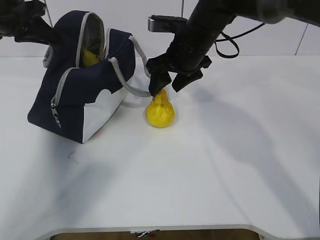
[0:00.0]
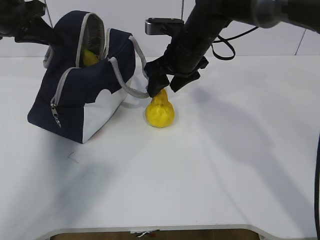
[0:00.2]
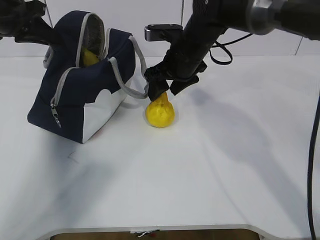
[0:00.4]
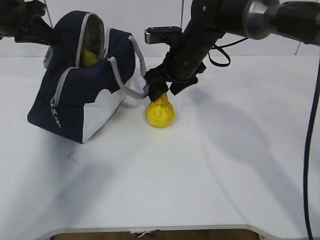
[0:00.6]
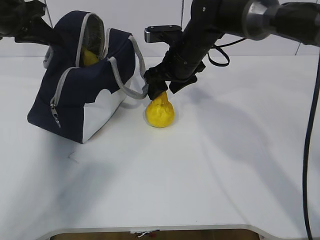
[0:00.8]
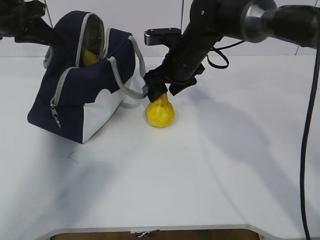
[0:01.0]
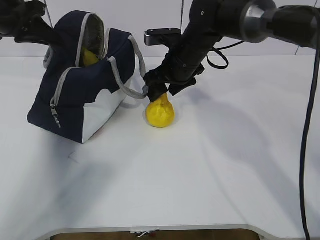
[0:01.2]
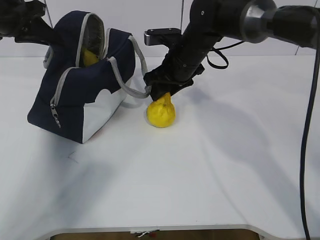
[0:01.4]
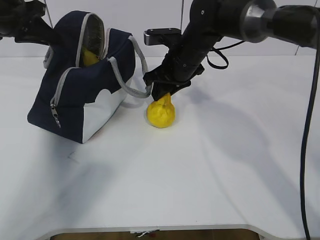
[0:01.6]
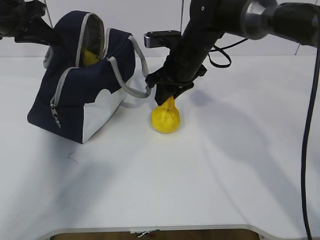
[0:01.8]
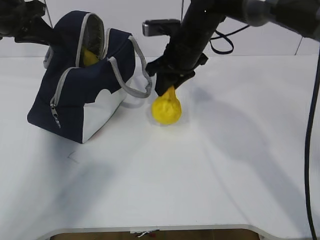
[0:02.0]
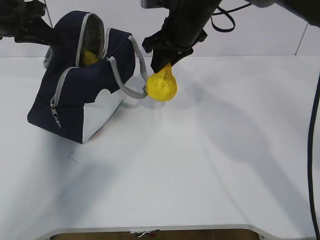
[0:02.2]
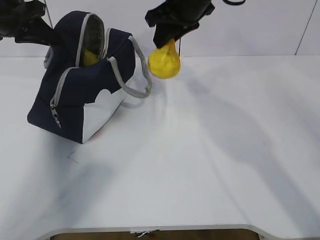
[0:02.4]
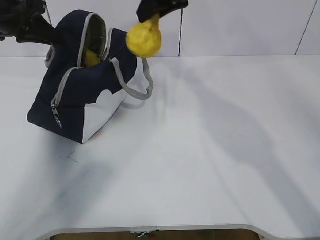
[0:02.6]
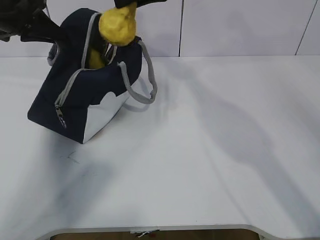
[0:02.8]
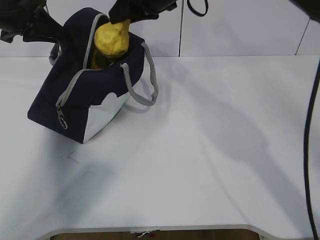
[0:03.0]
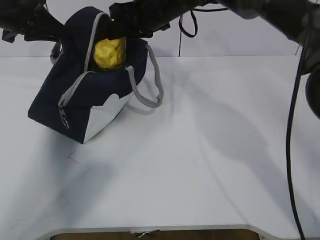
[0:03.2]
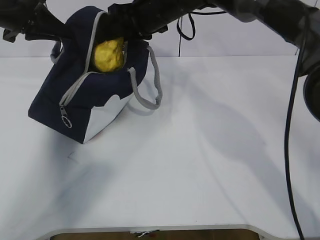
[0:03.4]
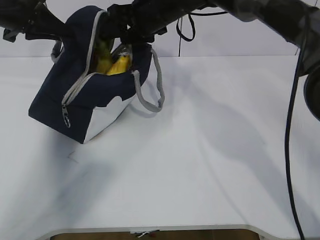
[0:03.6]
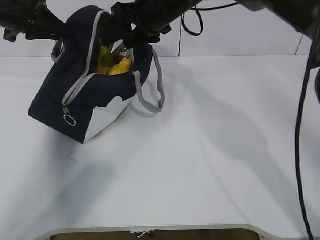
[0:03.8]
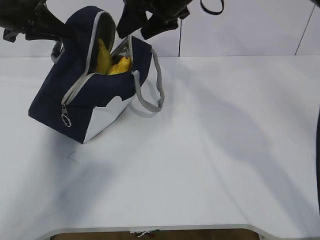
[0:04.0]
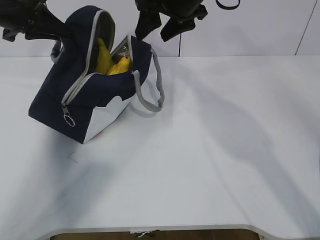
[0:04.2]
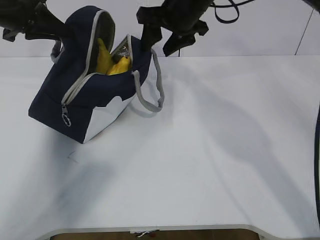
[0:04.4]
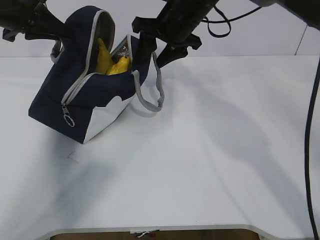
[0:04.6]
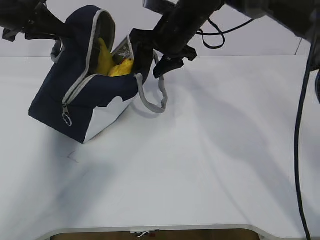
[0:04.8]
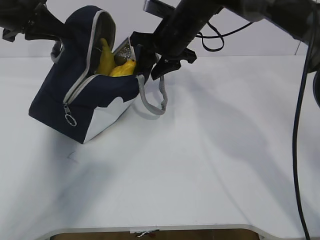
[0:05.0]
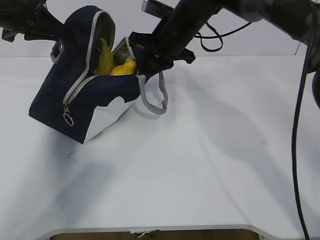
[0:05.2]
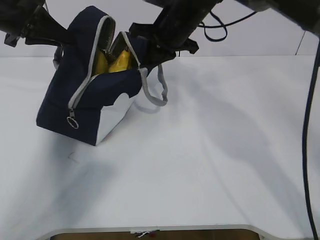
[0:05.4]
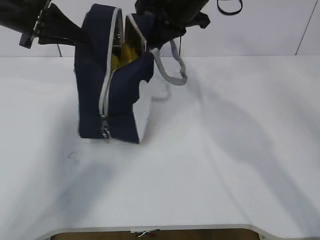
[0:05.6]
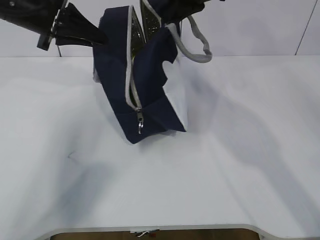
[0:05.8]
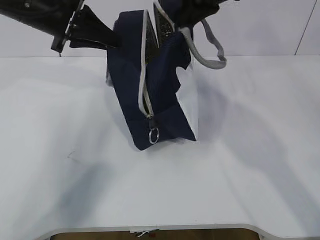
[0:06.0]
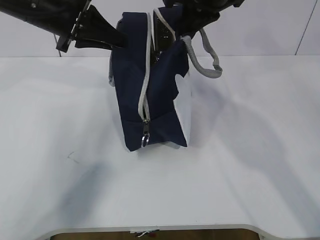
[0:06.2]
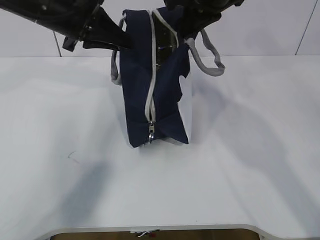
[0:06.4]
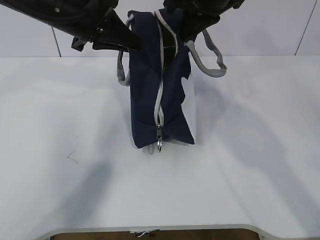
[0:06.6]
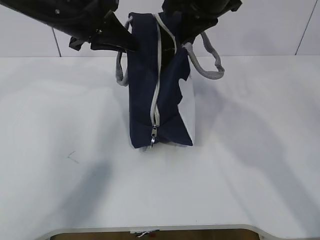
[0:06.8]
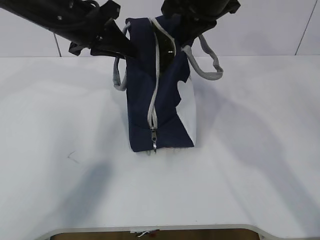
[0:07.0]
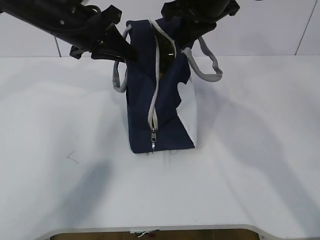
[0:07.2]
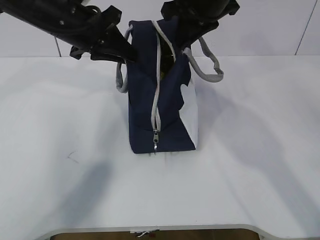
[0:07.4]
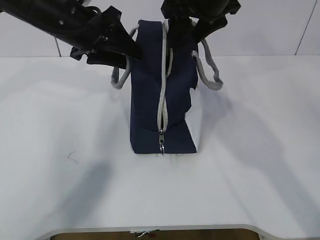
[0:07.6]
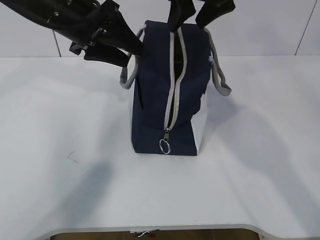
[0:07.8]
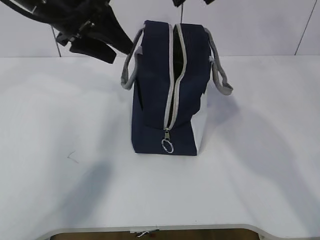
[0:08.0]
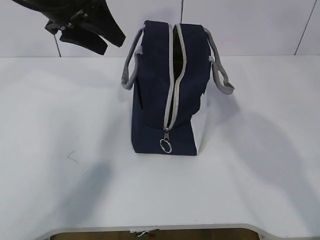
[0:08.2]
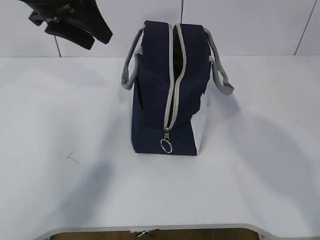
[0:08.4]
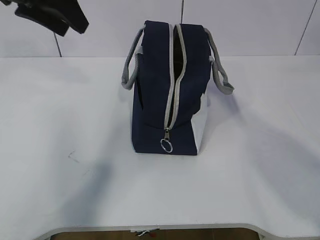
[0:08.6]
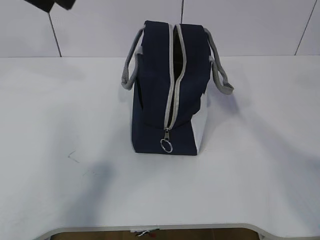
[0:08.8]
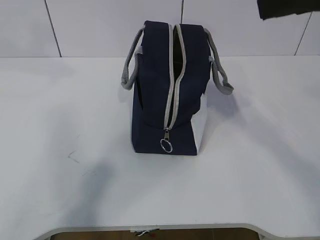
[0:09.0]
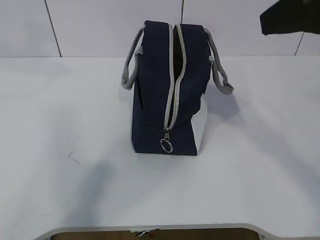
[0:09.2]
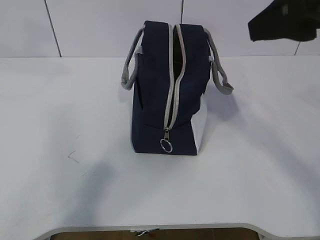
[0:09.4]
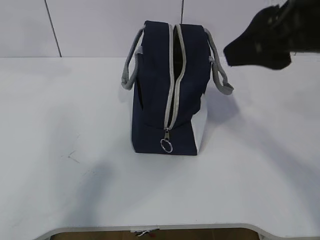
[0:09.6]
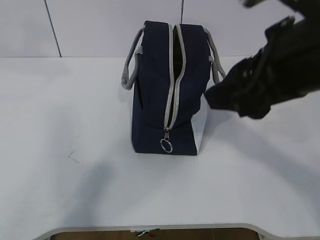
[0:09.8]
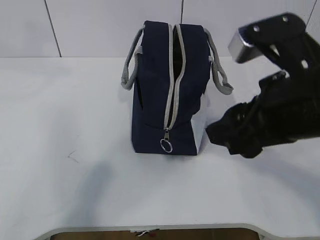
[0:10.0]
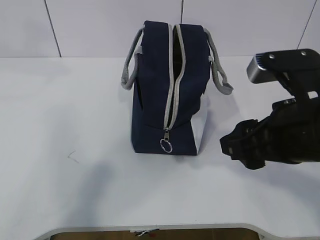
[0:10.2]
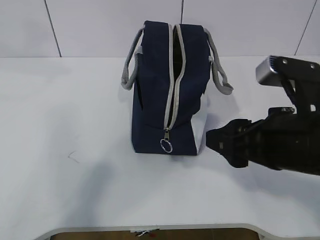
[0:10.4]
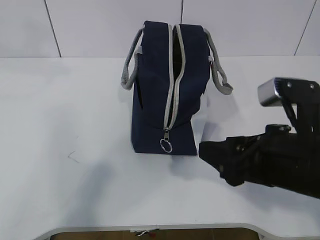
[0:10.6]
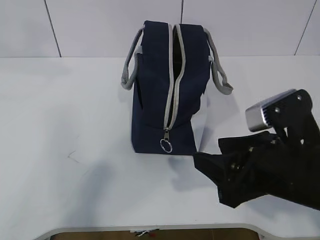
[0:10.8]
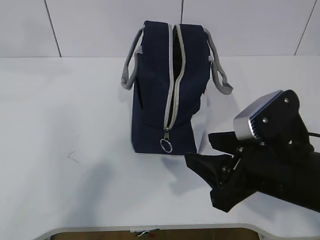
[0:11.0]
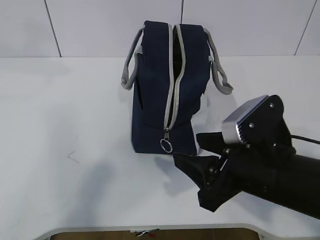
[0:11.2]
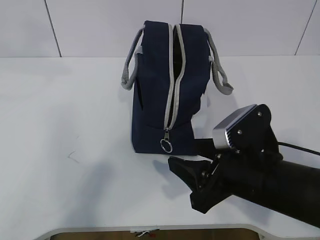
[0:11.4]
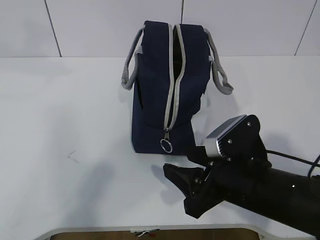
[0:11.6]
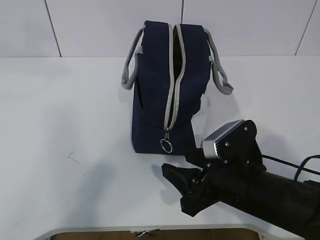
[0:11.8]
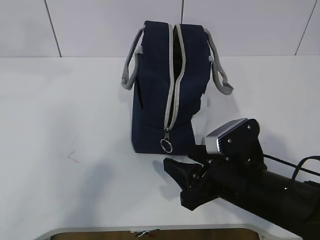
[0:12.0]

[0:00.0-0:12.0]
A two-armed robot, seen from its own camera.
Step, 0:00.0 to 0:02.2: Move the lunch bag to the right.
0:00.0 to 0:01.6: The right gripper closes its fingers.
0:01.6 to 0:03.0: The right gripper goes about 15 cm upward.
0:03.0 to 0:04.4: The right gripper opens.
0:04.4 to 0:06.0: The left gripper goes some 10 cm to the right; the right gripper travels upward by some 5 cm, and closes up.
0:06.0 to 0:07.6: The left gripper opens up. The right gripper opens.
0:07.6 to 0:09.0: The right gripper heads backward, covering some 20 cm; the left gripper shifts roughly 20 cm upward and backward.
0:09.0 to 0:10.4: The right gripper goes approximately 20 cm downward.
0:10.4 to 0:12.0: The right gripper shifts approximately 10 cm downward.

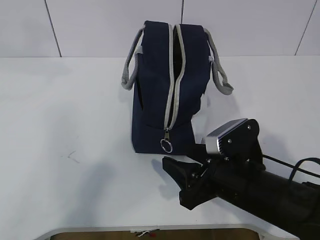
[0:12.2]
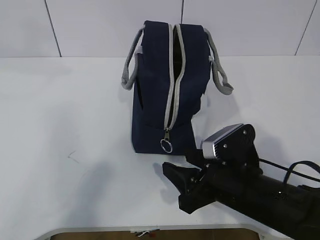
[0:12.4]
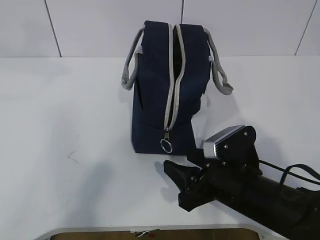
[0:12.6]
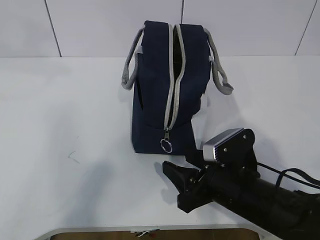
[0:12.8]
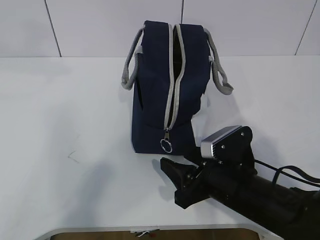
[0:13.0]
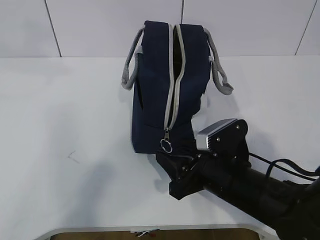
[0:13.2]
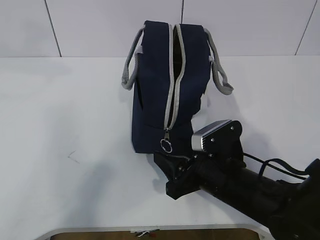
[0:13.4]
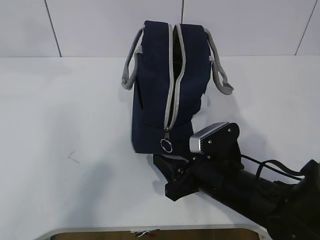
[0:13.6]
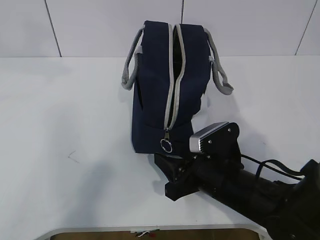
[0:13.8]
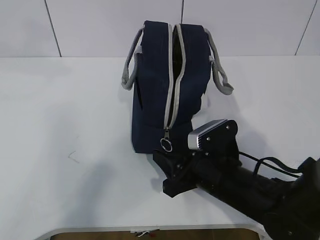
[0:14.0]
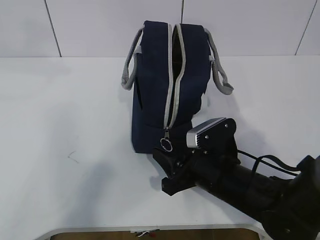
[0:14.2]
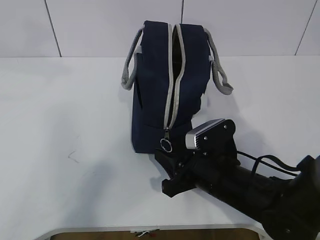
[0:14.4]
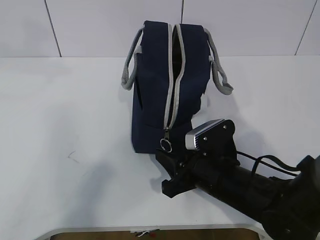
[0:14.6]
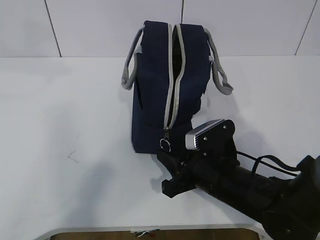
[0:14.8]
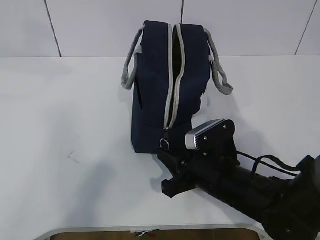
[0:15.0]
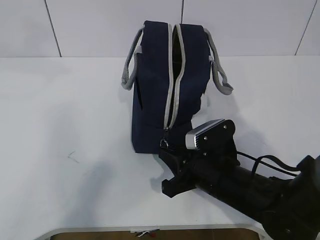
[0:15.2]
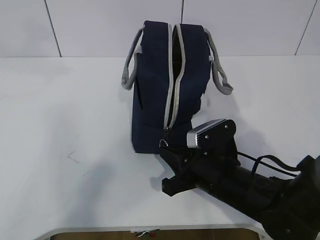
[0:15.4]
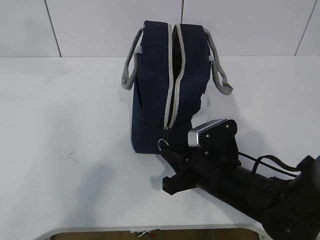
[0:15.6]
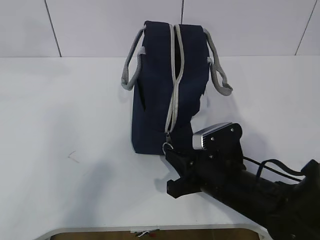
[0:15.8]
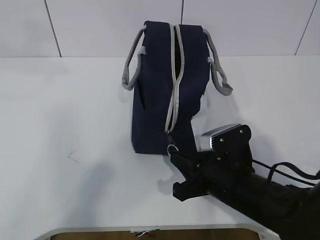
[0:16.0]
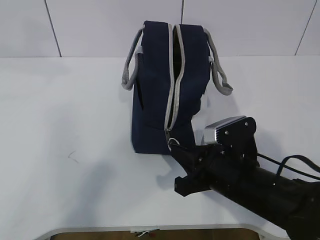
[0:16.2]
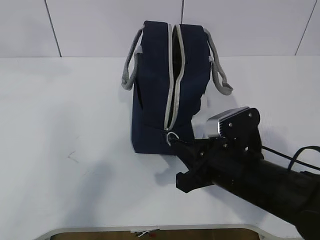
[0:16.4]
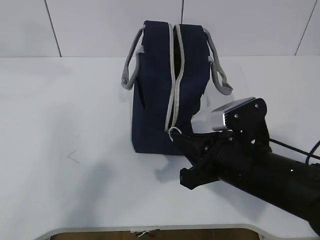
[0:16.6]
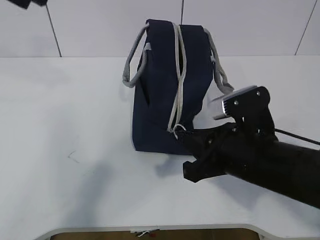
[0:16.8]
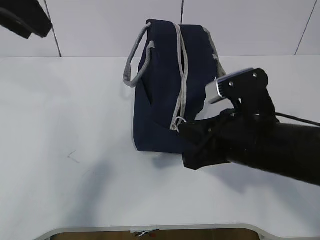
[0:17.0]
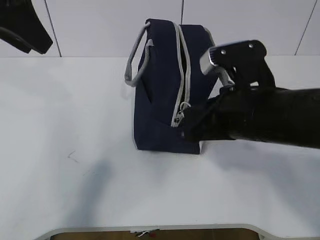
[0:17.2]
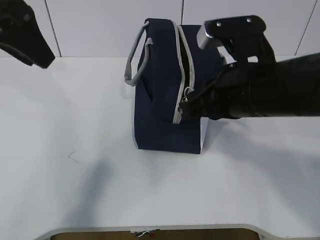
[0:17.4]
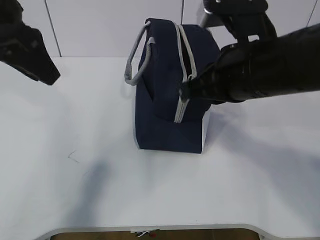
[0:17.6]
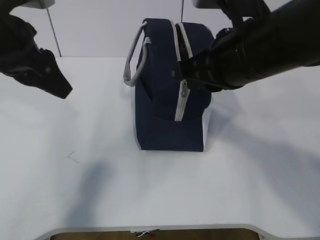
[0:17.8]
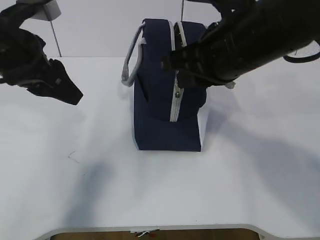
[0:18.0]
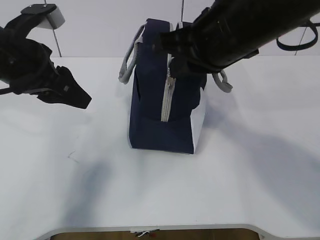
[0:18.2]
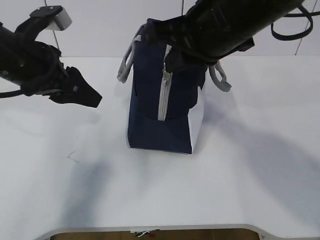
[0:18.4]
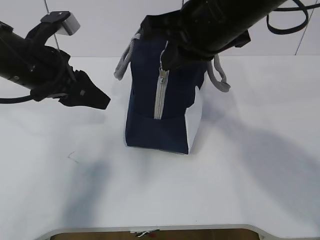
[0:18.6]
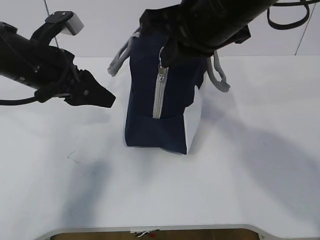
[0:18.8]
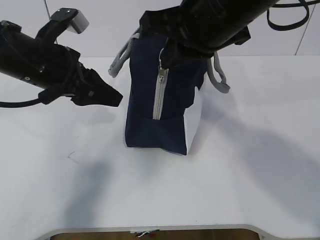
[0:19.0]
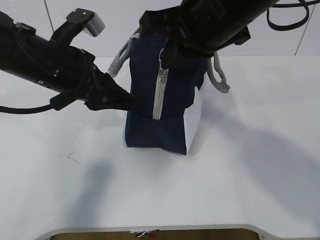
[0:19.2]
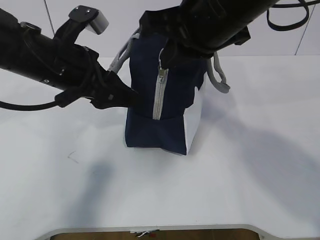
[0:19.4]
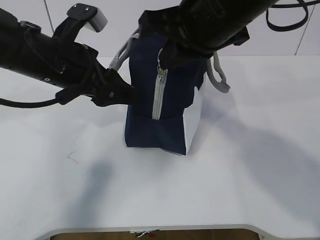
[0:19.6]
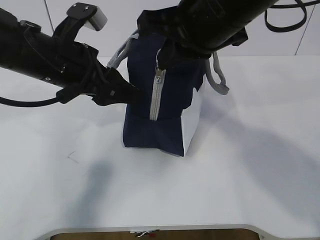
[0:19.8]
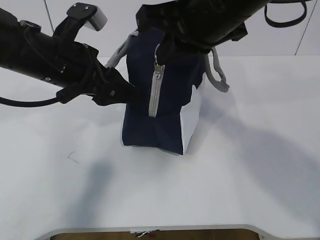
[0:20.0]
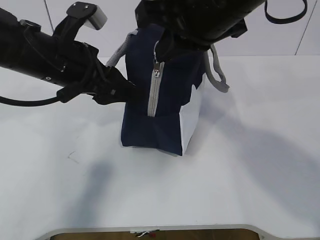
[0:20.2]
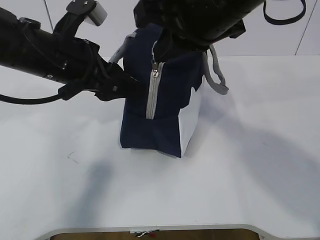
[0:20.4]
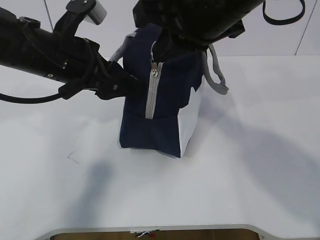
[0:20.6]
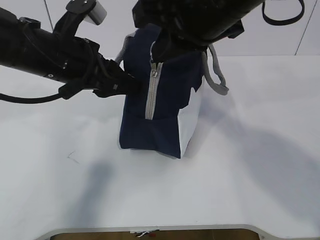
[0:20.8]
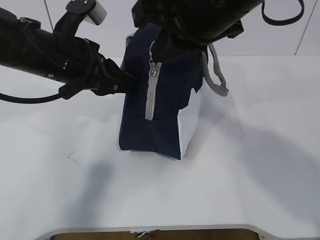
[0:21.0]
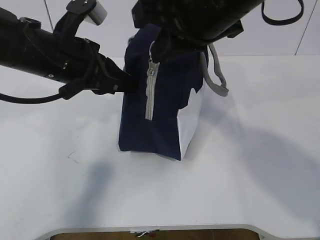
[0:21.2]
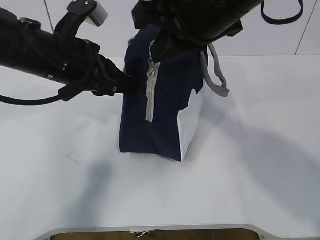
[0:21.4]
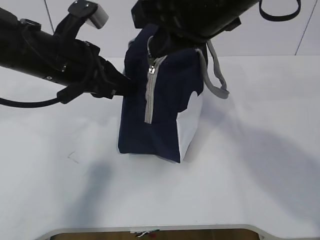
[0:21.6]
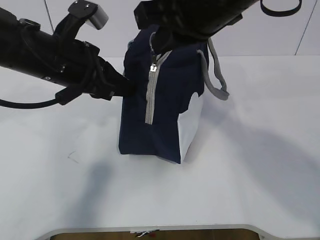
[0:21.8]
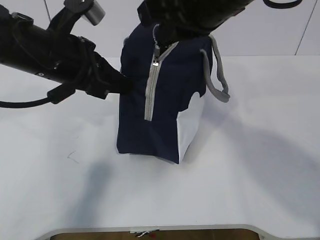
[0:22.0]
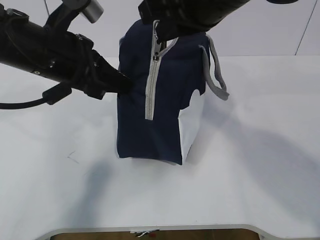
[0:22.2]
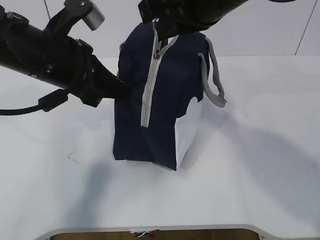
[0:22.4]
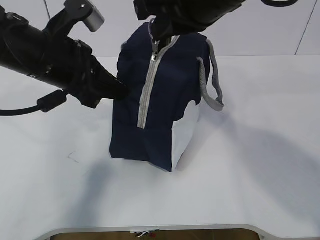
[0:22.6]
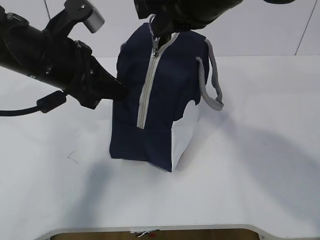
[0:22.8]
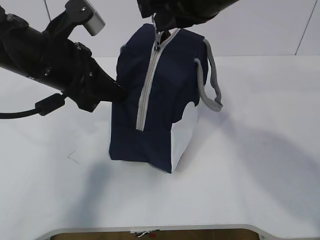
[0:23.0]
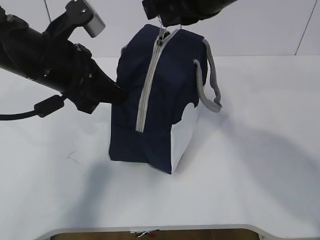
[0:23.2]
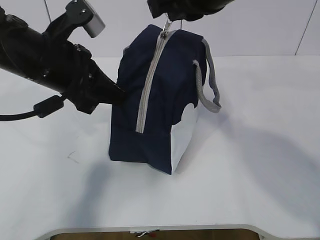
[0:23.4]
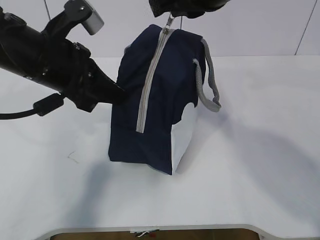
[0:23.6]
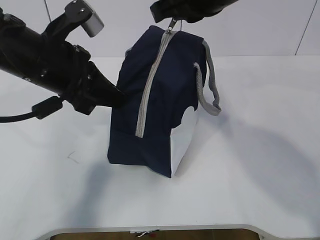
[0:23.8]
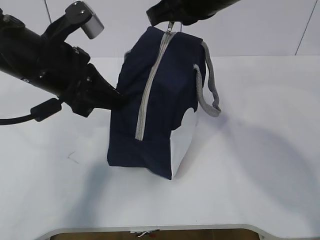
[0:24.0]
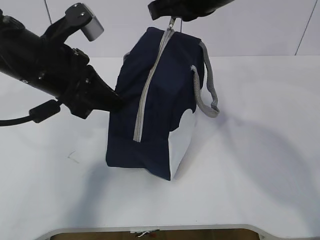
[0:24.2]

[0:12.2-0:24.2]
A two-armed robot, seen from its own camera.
Step, 0:12.2 to 0:17.6: Grab the lunch bag with your left hand.
Step, 0:17.8 to 0:21.2: Pull the zipper with your right hand.
Step, 0:21.4 to 0:22.2: Grab the lunch bag with your left hand.
0:12.2 to 0:13.8: The grippers move only a little.
0:13.8 to 0:15.2: The right gripper closes its fingers.
0:15.2 to 0:16.6: The right gripper goes some 5 cm upward.
0:16.6 to 0:18.2: The left gripper is displaced downward by some 20 cm, while the right gripper shifts approximately 15 cm upward.
0:18.2 to 0:19.8: The left gripper heads to the right, covering some 5 cm.
0:19.8 to 0:21.2: The left gripper closes up.
0:21.2 to 0:22.6: The grippers move only a little.
0:22.6 to 0:24.2: The right gripper travels forward by roughly 5 cm.
